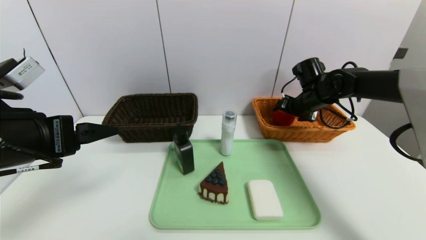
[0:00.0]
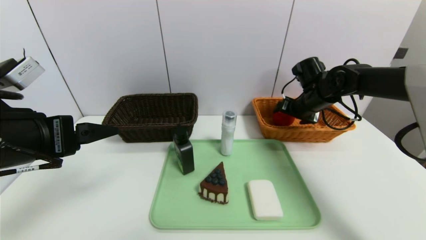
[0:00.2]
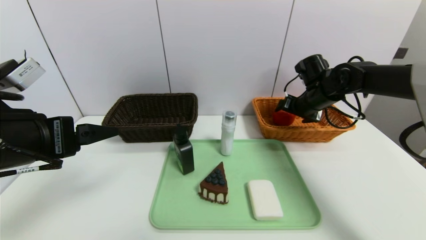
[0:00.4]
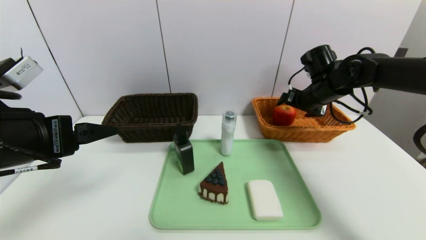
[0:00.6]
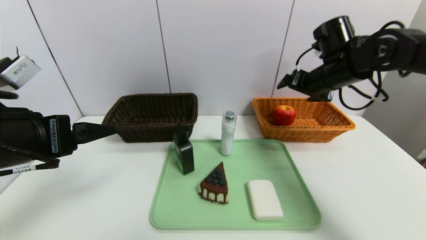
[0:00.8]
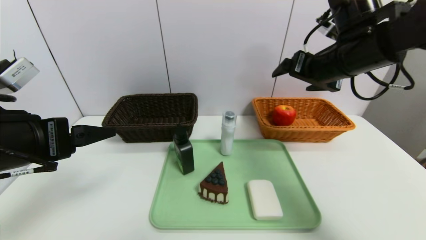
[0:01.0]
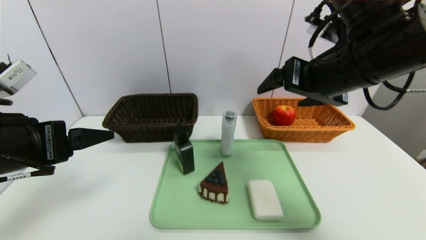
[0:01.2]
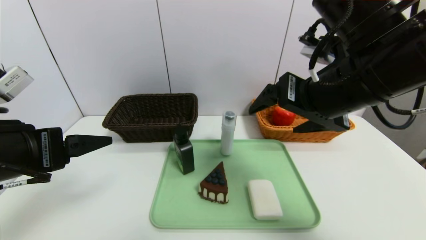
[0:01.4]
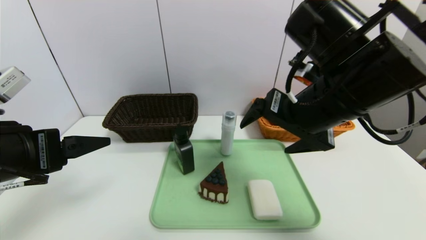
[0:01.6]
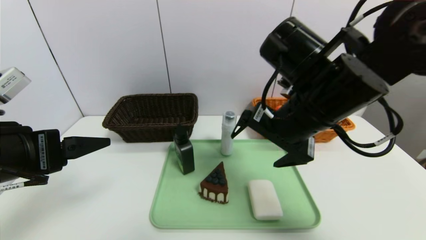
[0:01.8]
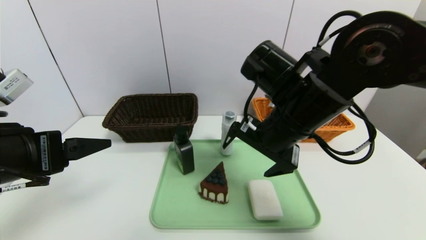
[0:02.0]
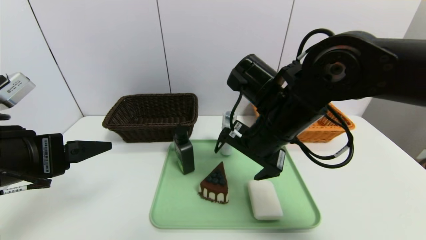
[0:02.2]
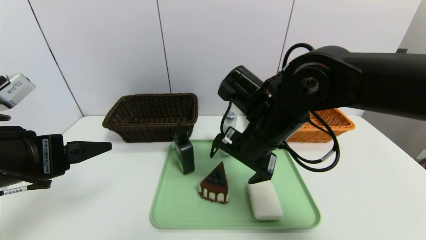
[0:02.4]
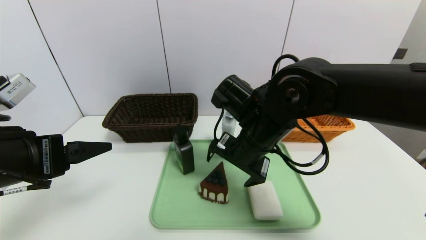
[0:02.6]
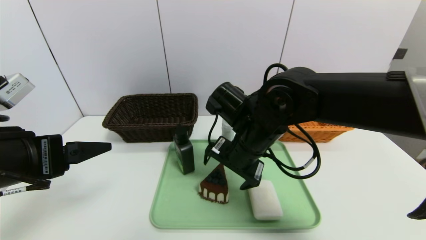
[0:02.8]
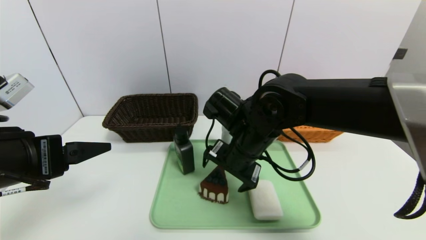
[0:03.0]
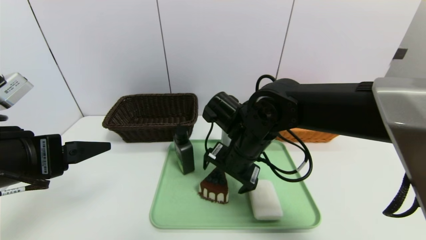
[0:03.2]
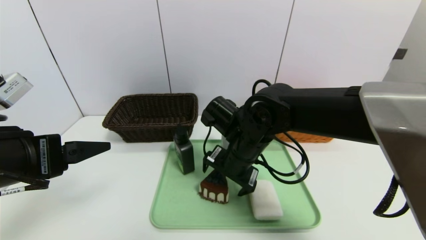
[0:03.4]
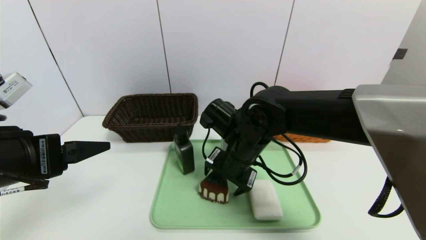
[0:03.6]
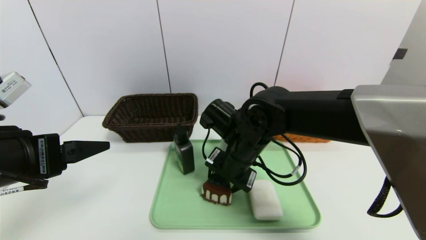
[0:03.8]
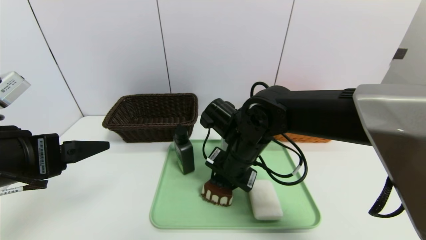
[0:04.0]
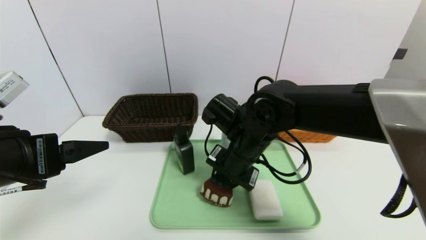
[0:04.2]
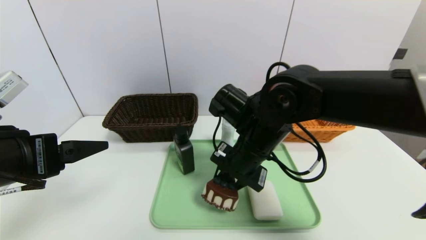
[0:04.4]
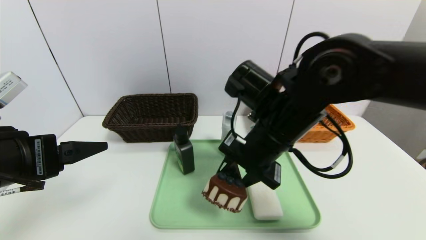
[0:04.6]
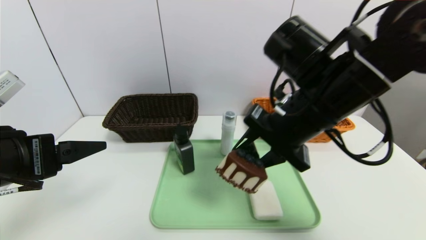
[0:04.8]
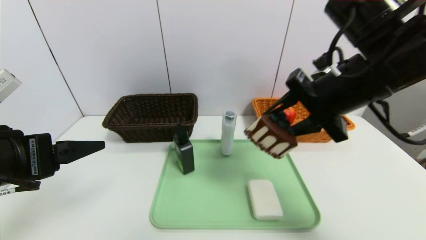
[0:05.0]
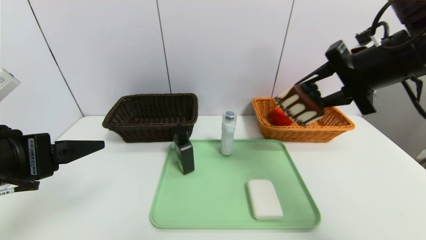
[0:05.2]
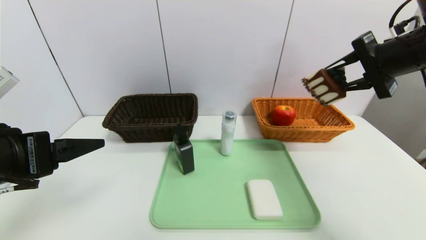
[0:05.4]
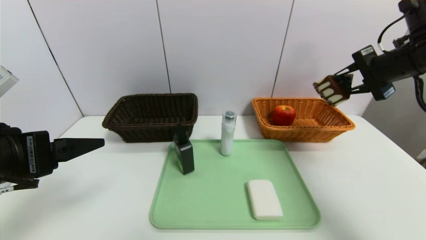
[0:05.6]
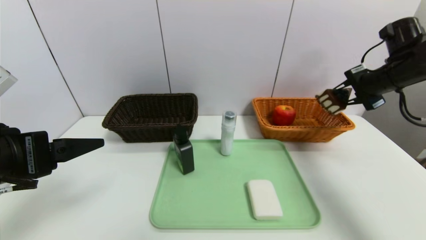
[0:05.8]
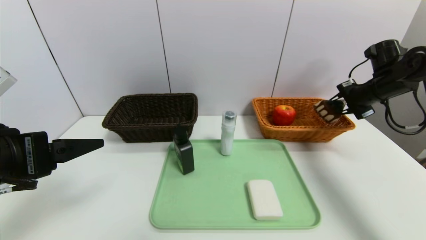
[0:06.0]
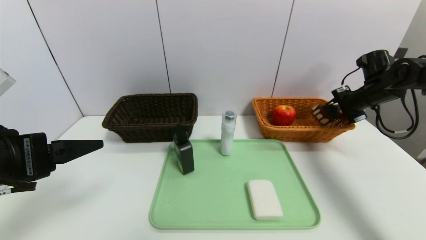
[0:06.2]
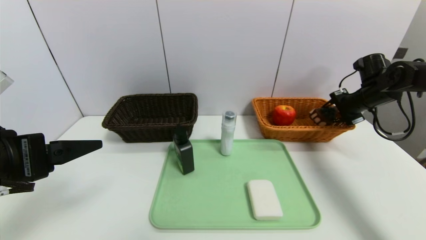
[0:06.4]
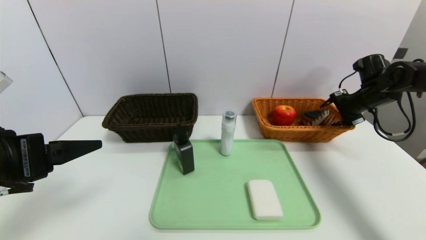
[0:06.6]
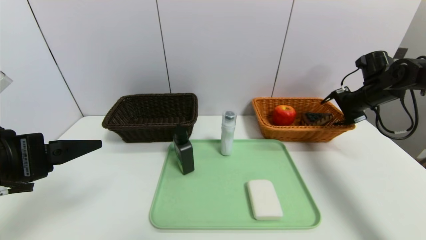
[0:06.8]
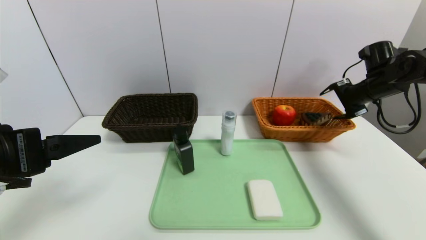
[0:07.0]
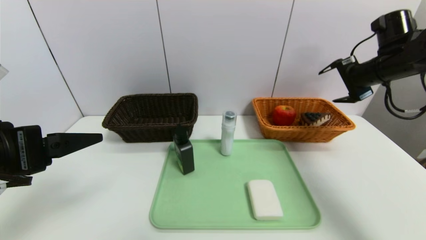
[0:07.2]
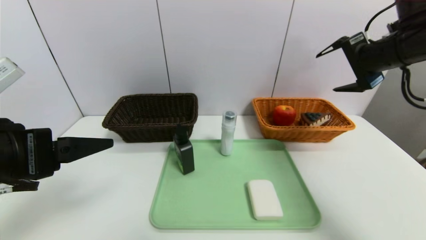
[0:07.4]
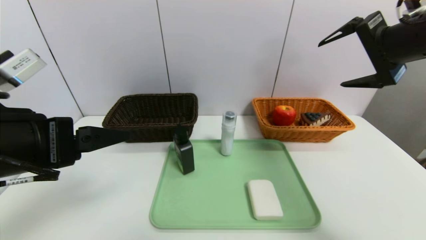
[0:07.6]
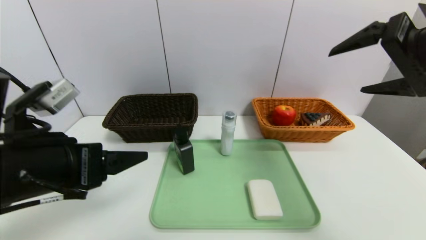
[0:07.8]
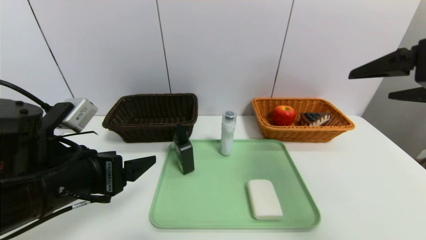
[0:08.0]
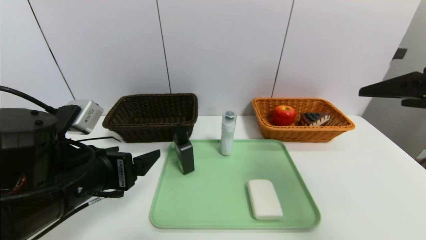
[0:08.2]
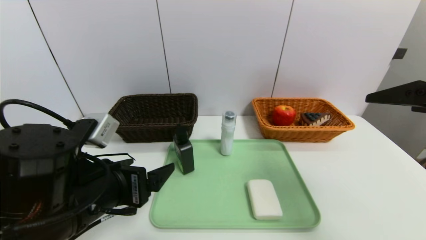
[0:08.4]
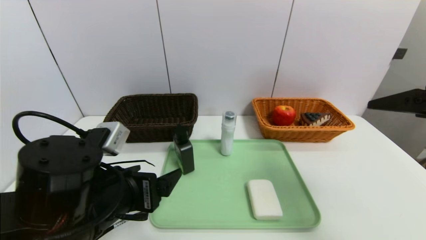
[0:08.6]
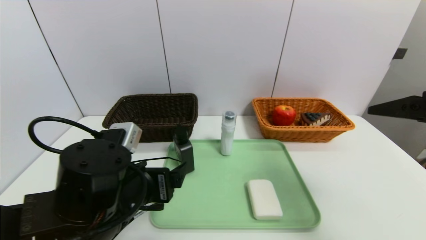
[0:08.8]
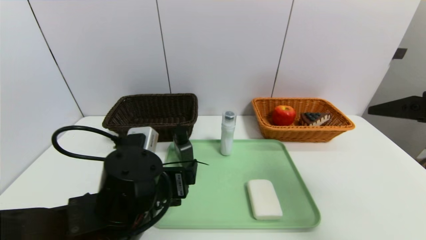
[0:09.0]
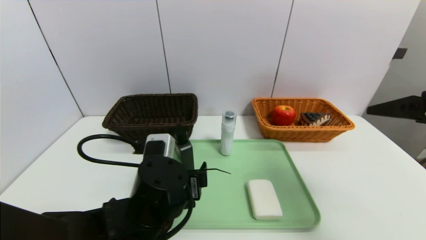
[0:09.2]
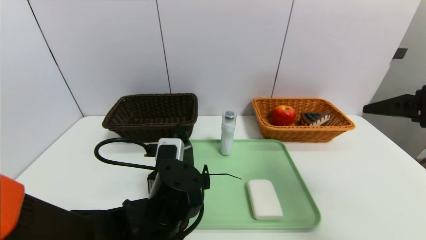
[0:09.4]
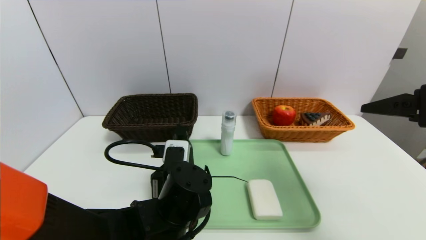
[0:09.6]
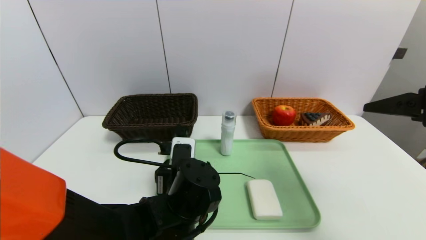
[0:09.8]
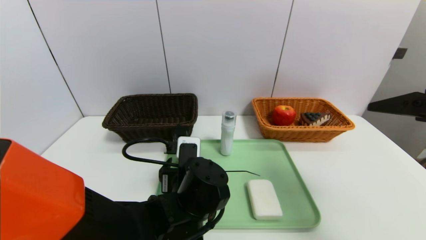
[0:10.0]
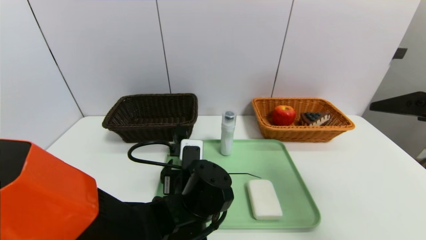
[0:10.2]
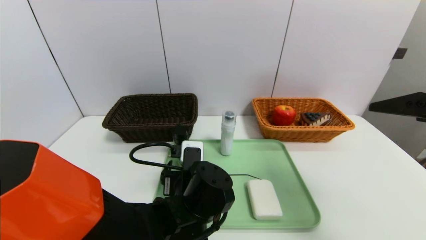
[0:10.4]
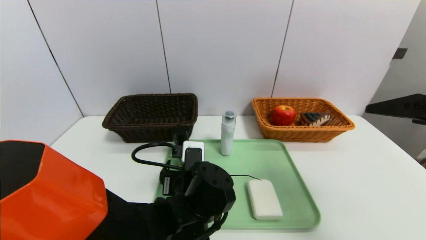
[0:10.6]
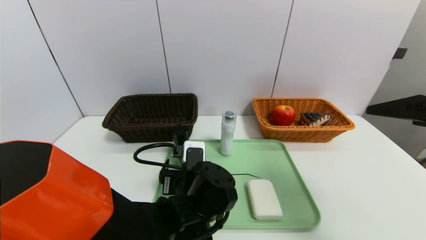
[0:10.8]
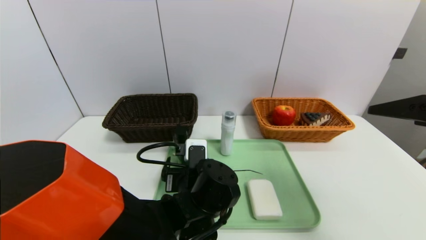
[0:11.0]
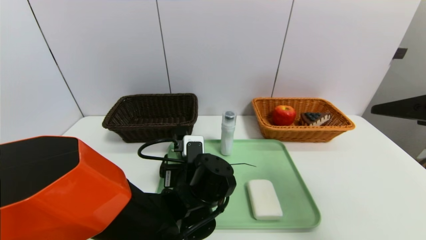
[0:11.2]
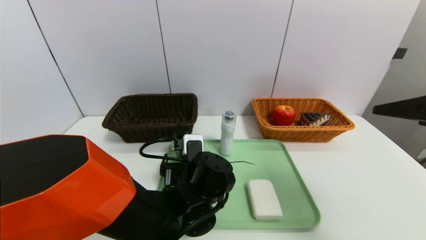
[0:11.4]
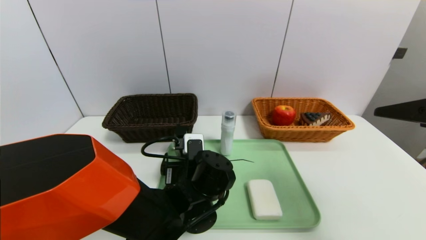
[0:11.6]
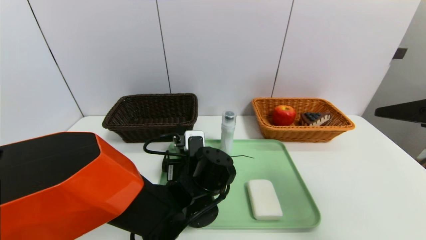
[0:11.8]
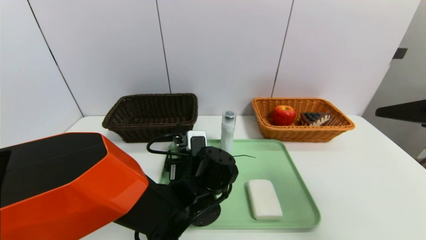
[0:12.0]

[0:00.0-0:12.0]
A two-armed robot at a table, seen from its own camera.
Task of the whole recording: place the food in the right basket with the right gripper, and place the non food items in the left basket with the left gripper.
Step, 0:00.6 to 0:06.8: Grasp the triangle cake and put it in the right basket.
0:00.0 to 0:01.6: The right gripper shifts about 25 cm backward, to the left and upward.
0:01.6 to 0:03.0: The right gripper is displaced downward, to the left and forward by approximately 15 cm.
0:03.0 to 0:04.4: The right gripper closes up.
0:04.4 to 0:06.0: The right gripper shifts approximately 35 cm to the right and forward.
0:06.0 to 0:07.6: The right gripper travels backward, upward and to the left by approximately 25 cm, and opens its fingers.
0:07.6 to 0:09.0: The left gripper travels downward and to the right by some 20 cm, while the right gripper is displaced backward and downward by some 10 cm.
0:09.0 to 0:10.4: The left gripper goes roughly 10 cm to the right and downward.
0:10.4 to 0:12.0: The left gripper shifts about 5 cm forward.

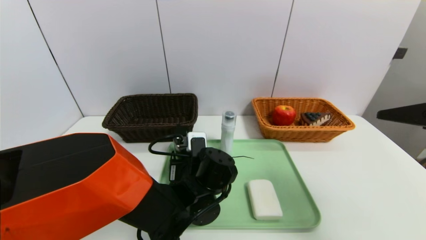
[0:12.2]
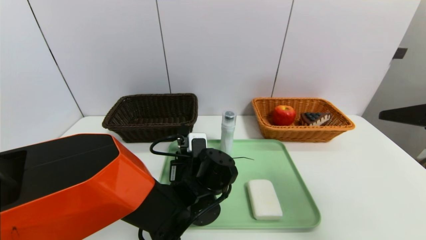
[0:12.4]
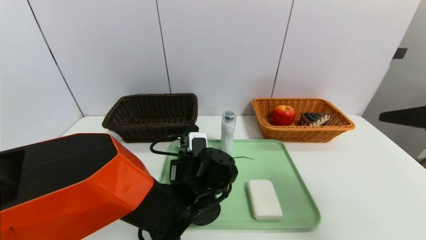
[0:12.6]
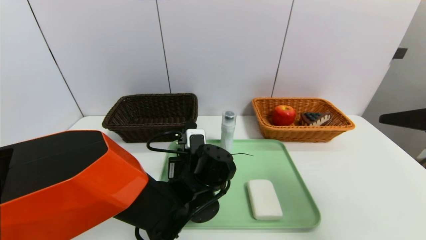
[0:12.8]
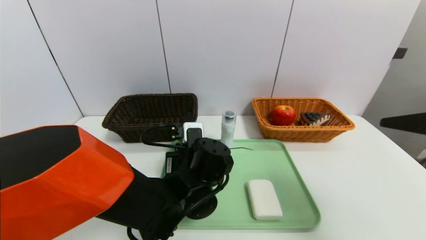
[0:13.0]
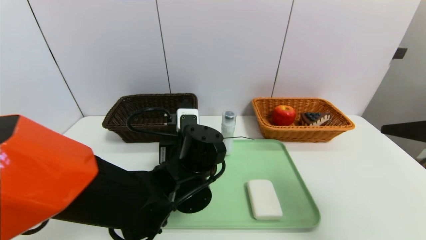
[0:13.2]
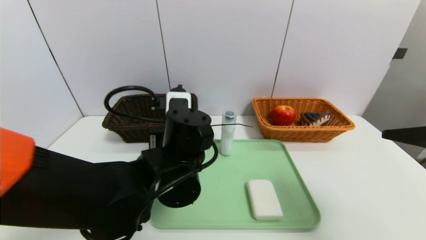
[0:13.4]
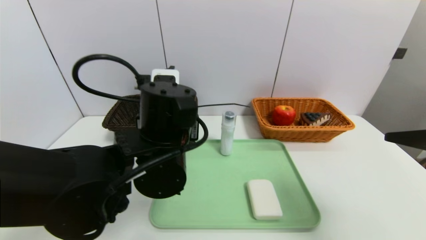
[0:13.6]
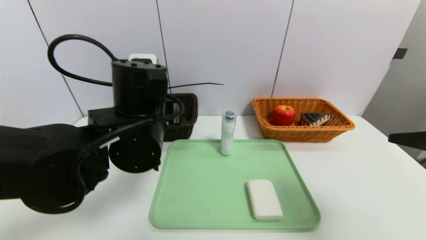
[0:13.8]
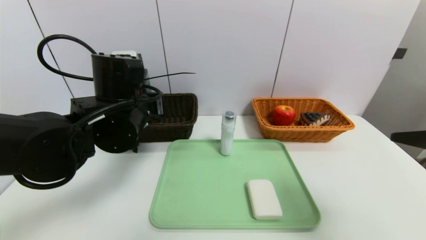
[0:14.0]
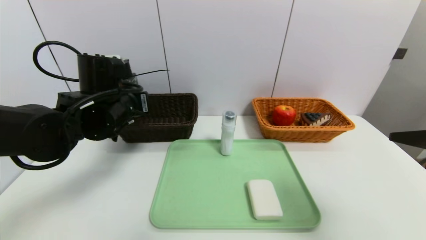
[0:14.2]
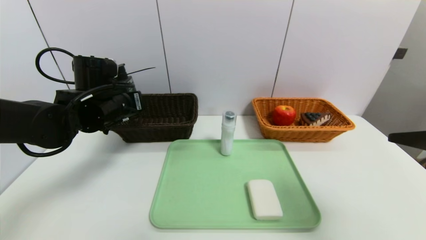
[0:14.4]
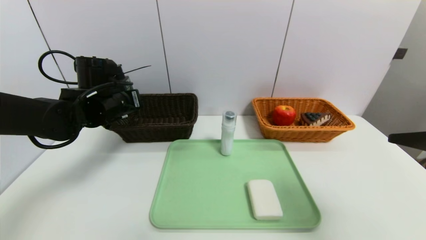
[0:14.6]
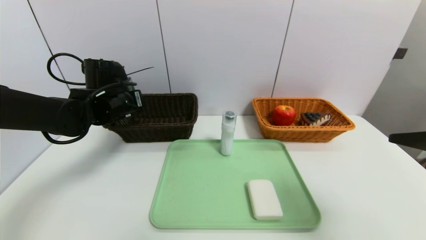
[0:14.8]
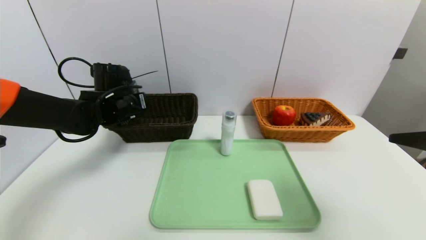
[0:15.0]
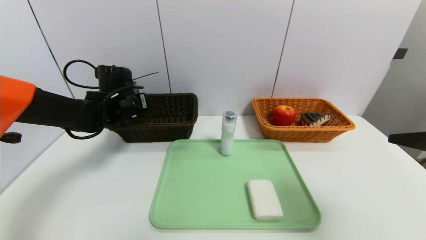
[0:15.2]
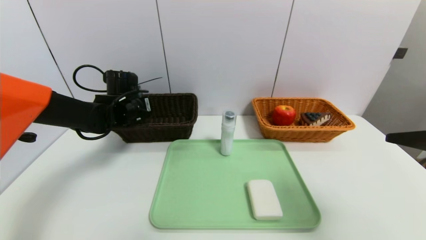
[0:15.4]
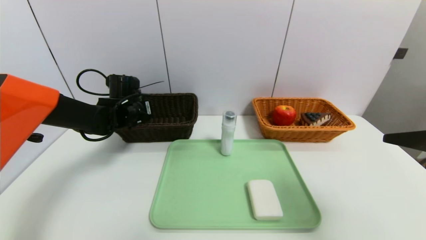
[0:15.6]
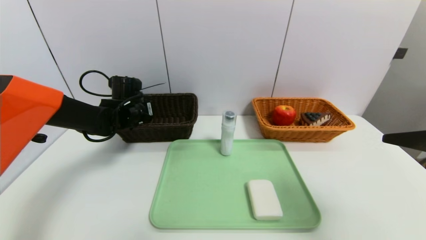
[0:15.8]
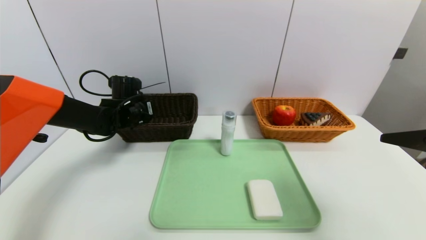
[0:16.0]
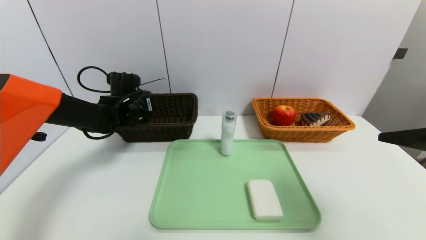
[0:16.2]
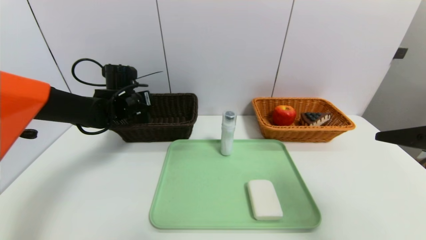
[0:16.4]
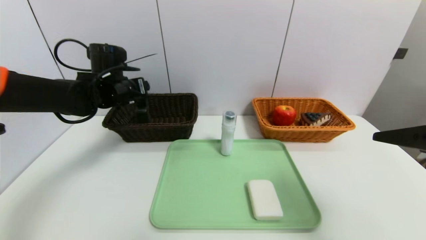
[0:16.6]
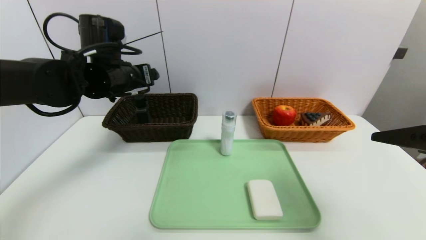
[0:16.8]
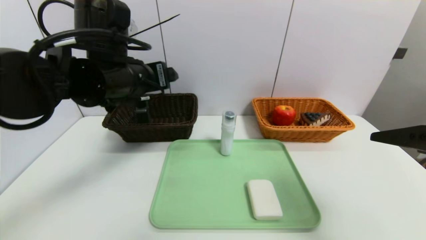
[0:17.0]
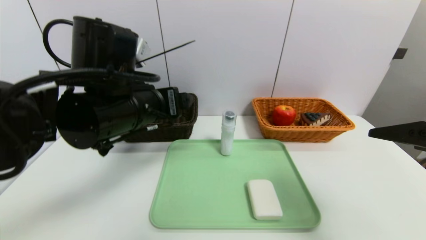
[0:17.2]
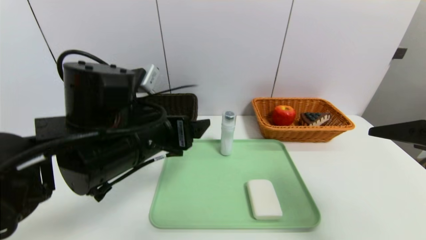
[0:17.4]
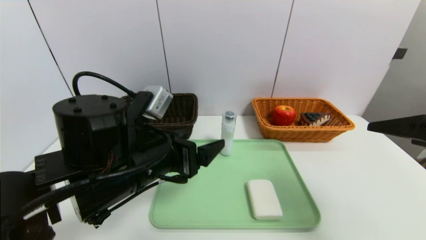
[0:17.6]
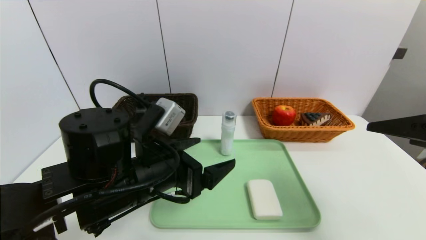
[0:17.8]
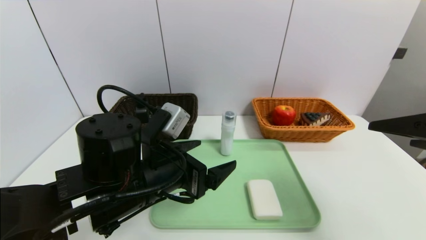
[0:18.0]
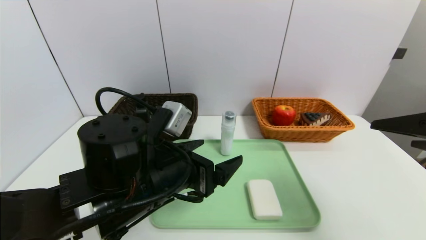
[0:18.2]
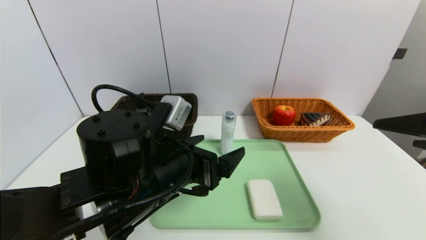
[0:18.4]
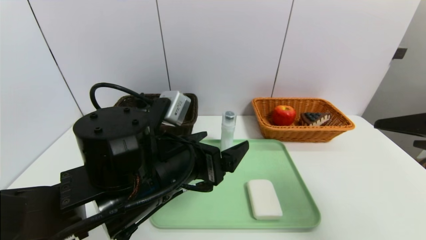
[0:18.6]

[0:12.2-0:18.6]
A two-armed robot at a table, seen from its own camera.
Task of the whole recording: place the food in the right basket with the right gripper, and place the non food items in the left basket with the left gripper.
Step, 0:12.2 to 0:16.8: Grasp the hard cleanser and put it in the left basket.
0:12.2 to 0:13.8: The left gripper is displaced upward and to the left by roughly 20 cm, and closes up.
0:13.8 to 0:15.4: The left gripper travels forward and to the left by some 20 cm.
0:15.4 to 0:17.0: The left gripper goes approximately 20 cm backward, upward and to the right, and opens up.
0:17.0 to 0:18.6: The left gripper travels backward, downward and to the right by some 15 cm.
